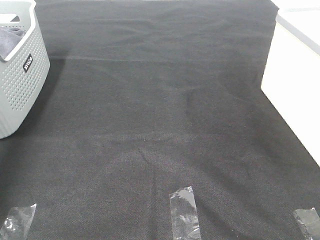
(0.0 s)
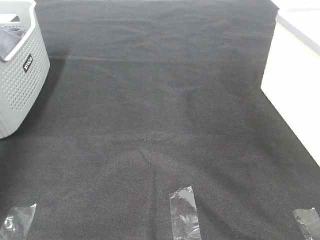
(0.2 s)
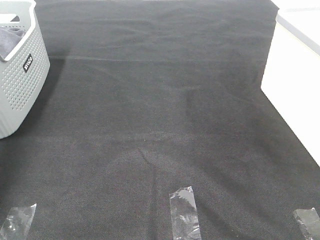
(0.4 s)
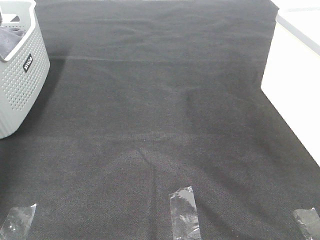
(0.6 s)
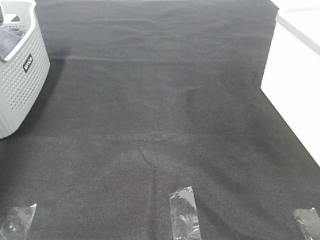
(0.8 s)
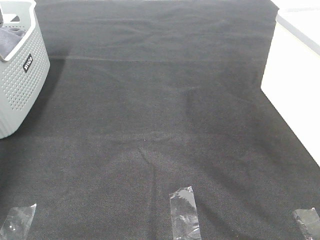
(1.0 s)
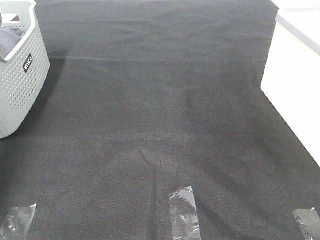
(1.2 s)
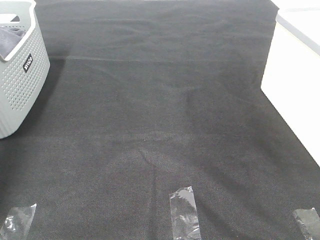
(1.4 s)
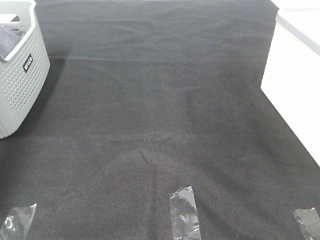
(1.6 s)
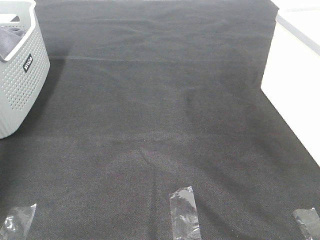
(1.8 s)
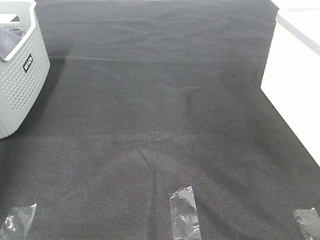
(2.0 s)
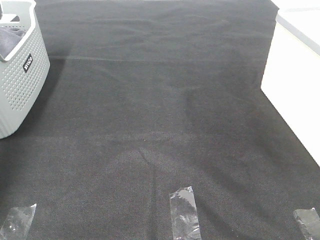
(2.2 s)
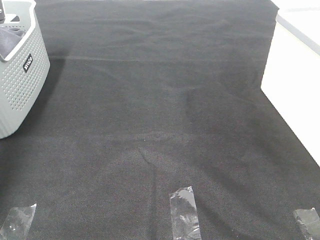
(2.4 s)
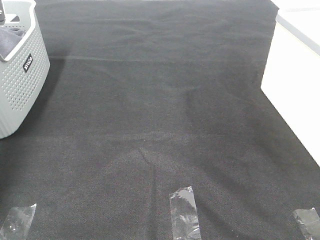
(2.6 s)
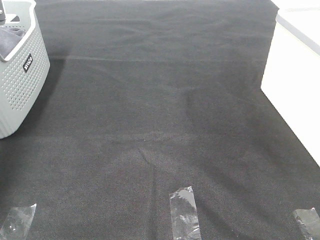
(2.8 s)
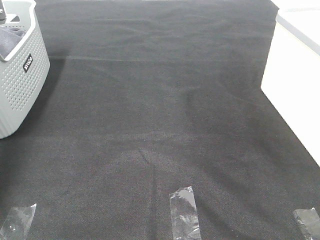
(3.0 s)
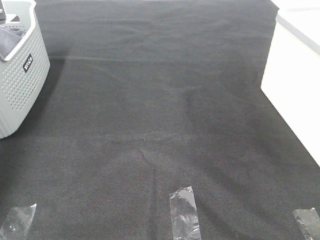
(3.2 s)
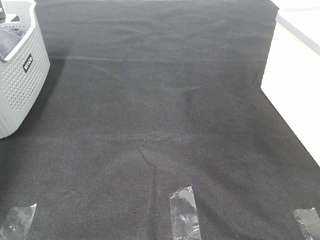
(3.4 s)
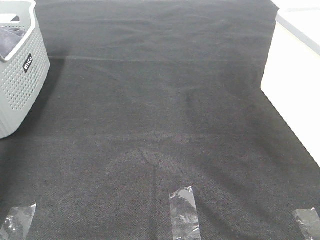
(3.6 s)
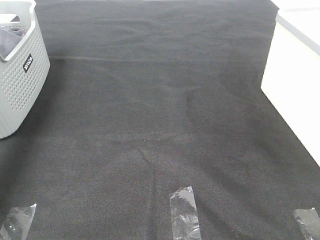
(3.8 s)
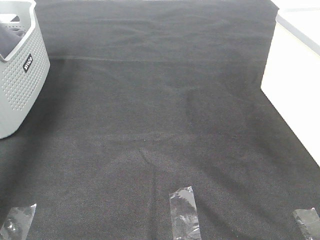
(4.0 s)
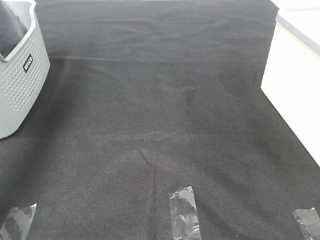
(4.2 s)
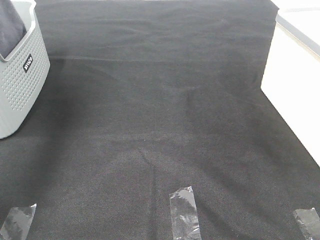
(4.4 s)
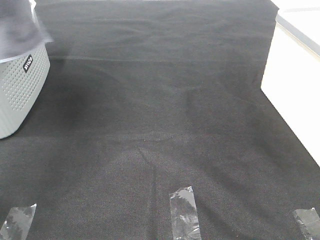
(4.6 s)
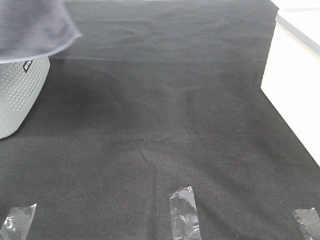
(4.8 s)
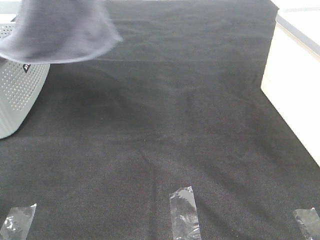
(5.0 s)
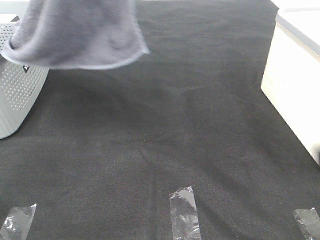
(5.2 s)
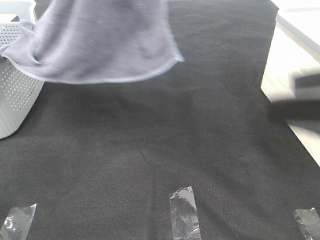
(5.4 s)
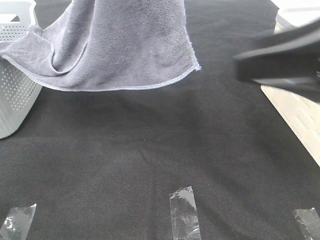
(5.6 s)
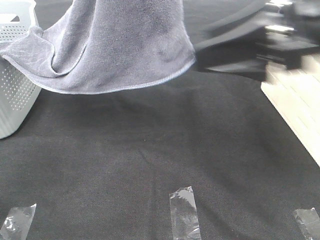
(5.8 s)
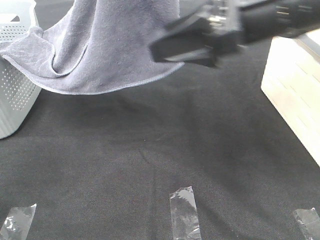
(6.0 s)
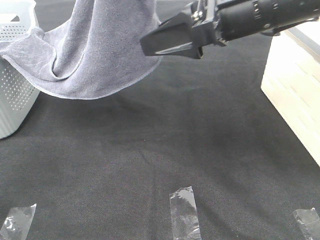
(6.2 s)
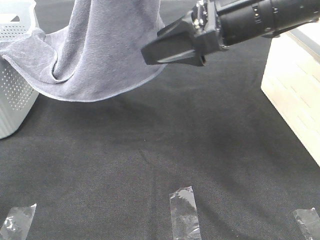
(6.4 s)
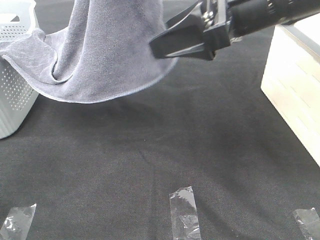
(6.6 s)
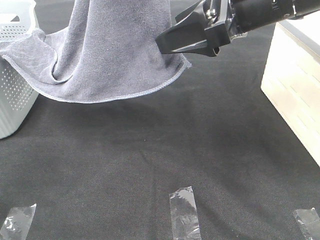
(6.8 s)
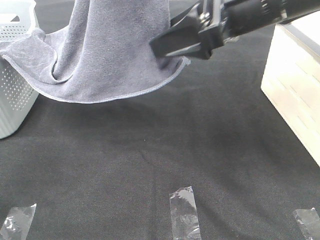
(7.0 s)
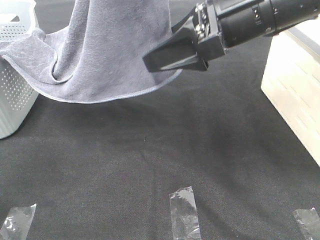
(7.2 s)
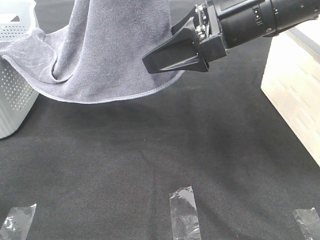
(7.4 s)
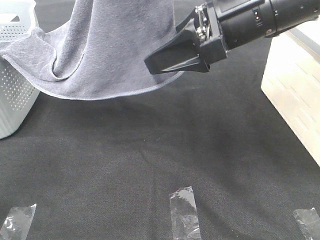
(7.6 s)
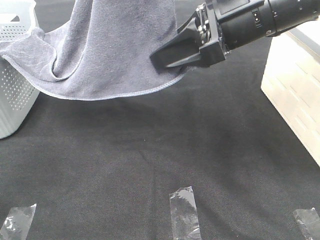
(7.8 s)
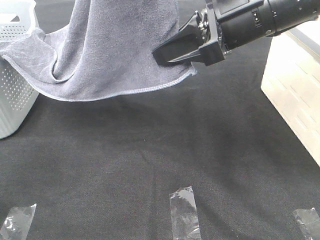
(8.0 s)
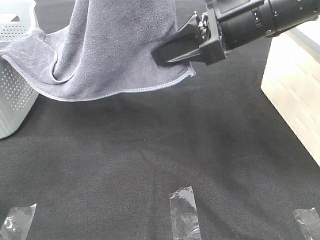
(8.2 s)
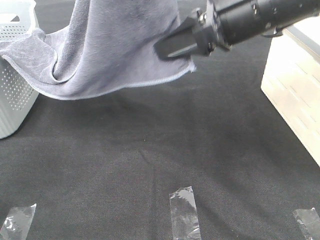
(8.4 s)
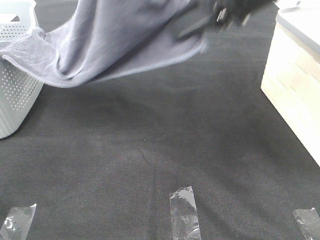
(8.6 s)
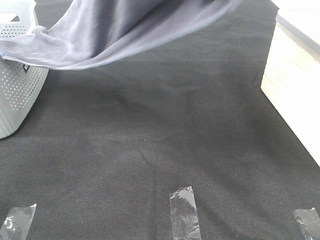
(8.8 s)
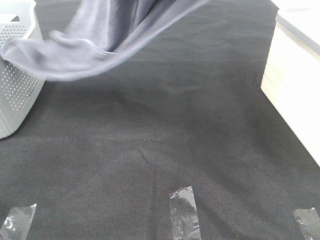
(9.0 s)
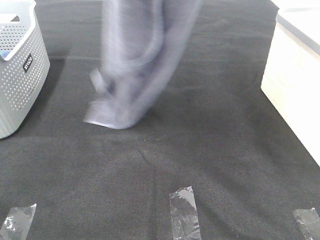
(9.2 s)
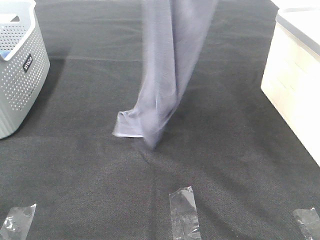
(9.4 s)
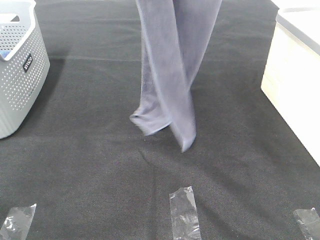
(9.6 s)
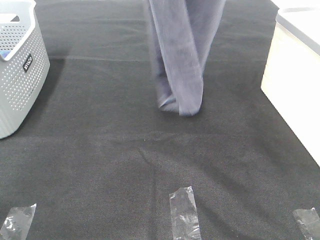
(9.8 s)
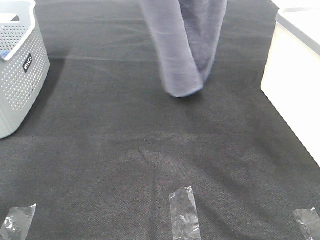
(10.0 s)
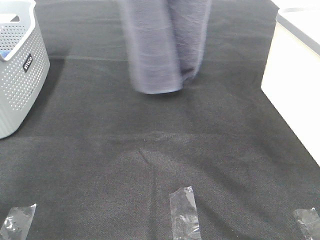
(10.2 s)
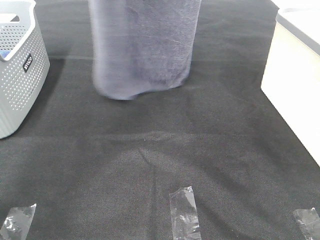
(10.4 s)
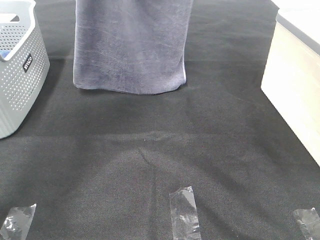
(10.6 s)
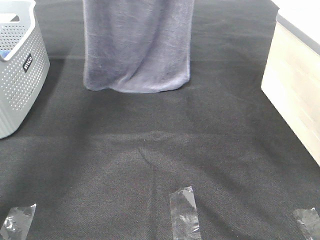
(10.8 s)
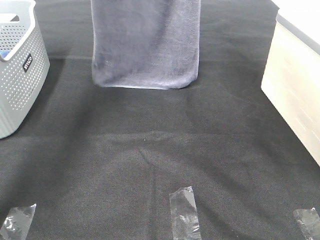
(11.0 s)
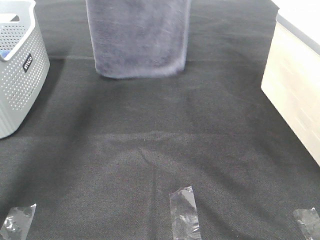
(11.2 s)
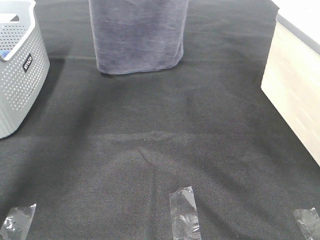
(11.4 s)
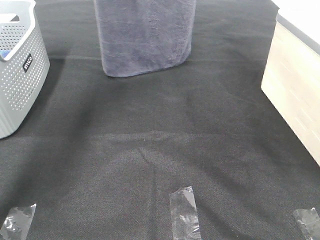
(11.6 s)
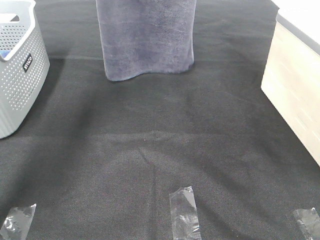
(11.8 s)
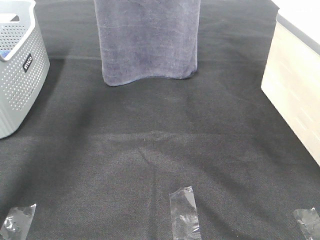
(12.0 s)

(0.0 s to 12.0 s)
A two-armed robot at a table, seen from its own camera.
Task of the whole recording: Remove the towel and place it.
Step, 3.6 s - 9.2 s: Right hand: grab a corner of the grey towel and straighten it.
3.0 s - 4.4 s: The left gripper travels upward, backward and to the right by about 35 cm.
4.4 s - 6.0 s: The right gripper shifts roughly 30 cm forward and to the left. Meanwhile the left gripper heads to the right and backward, covering roughly 25 cm.
6.0 s - 7.6 s: The grippers move only a little.
7.6 s - 9.0 s: The right gripper travels upward by roughly 15 cm, and closes up.
9.0 s - 10.4 s: The grippers both shift forward by roughly 15 cm.
10.4 s - 12.0 s: The left gripper goes roughly 10 cm forward; the right gripper moves some 5 cm.

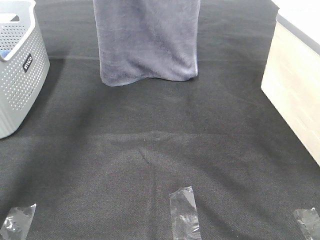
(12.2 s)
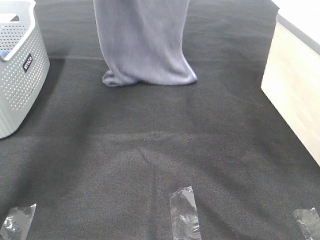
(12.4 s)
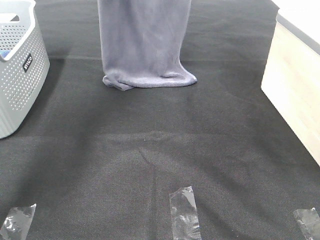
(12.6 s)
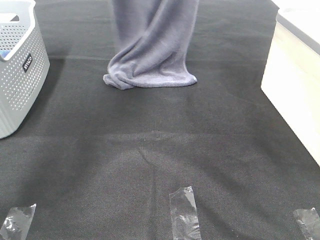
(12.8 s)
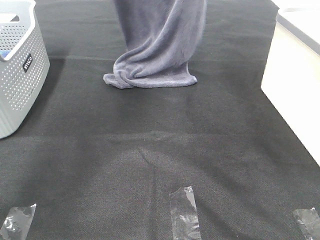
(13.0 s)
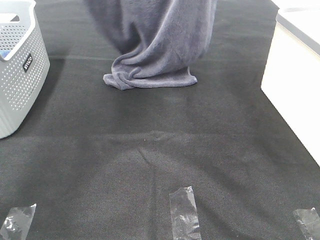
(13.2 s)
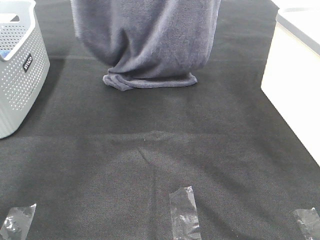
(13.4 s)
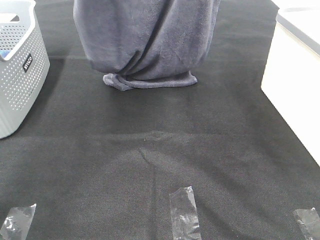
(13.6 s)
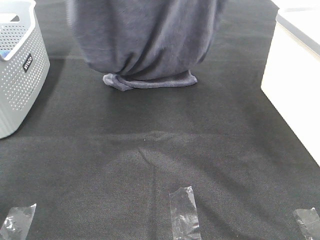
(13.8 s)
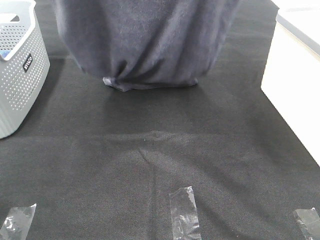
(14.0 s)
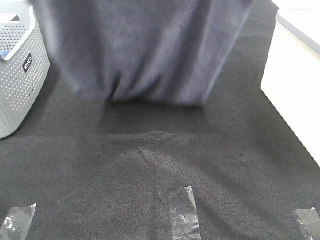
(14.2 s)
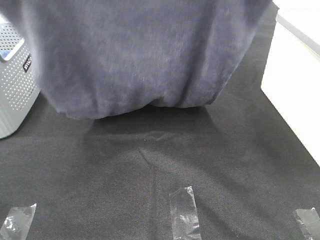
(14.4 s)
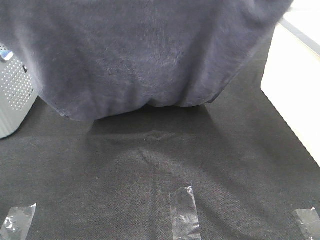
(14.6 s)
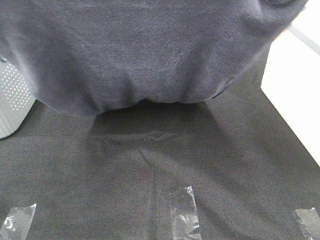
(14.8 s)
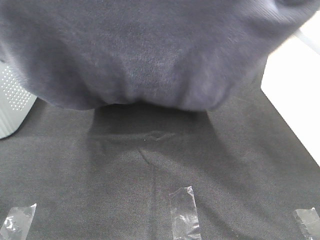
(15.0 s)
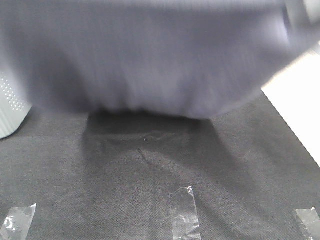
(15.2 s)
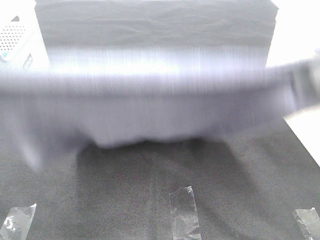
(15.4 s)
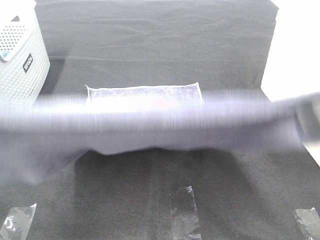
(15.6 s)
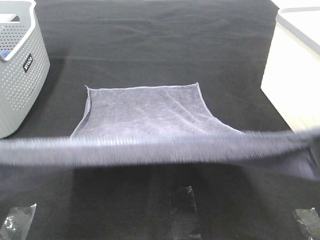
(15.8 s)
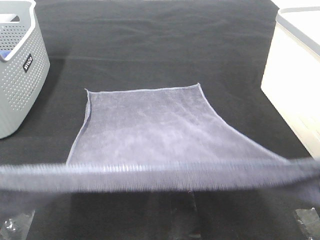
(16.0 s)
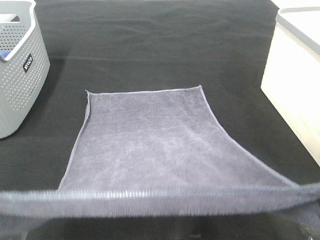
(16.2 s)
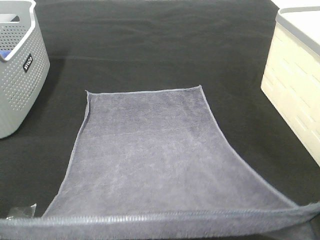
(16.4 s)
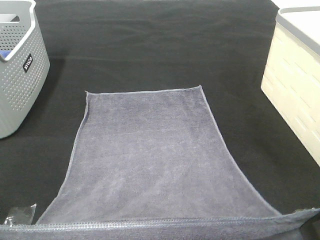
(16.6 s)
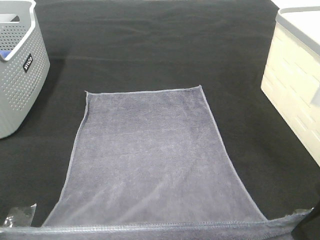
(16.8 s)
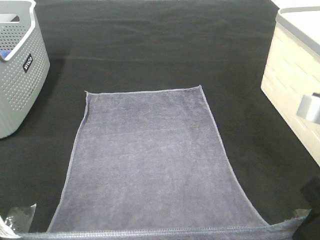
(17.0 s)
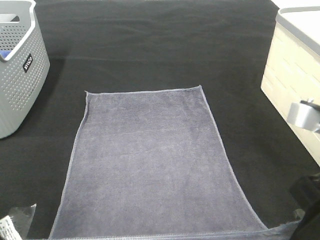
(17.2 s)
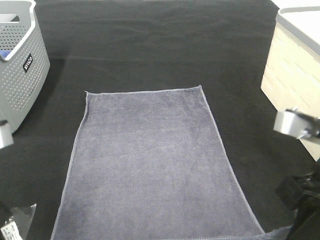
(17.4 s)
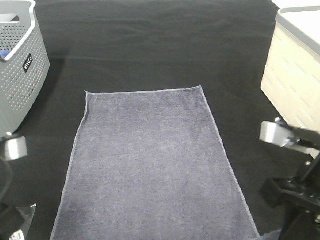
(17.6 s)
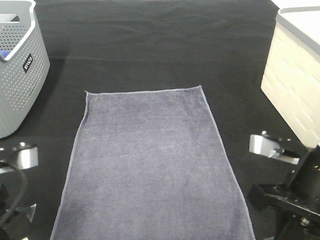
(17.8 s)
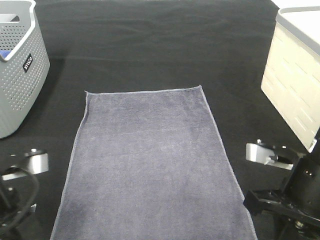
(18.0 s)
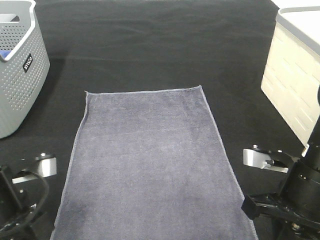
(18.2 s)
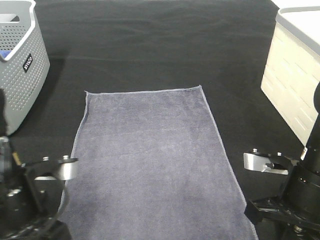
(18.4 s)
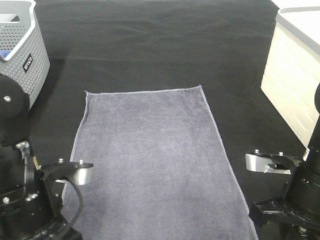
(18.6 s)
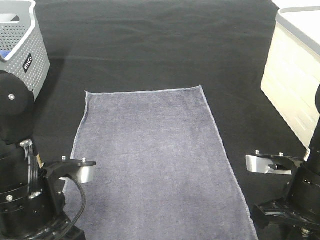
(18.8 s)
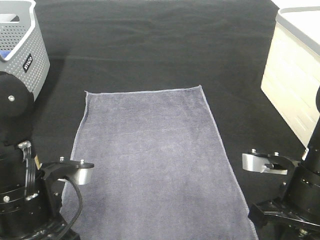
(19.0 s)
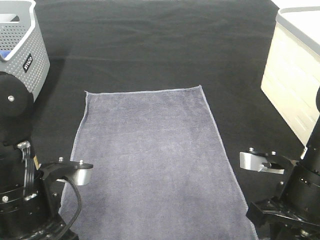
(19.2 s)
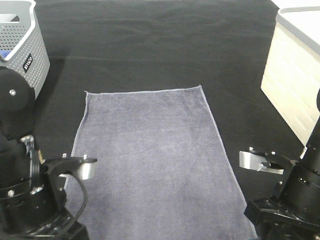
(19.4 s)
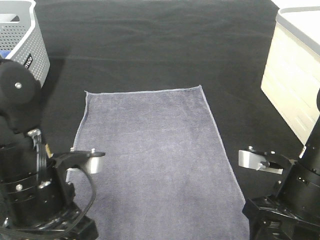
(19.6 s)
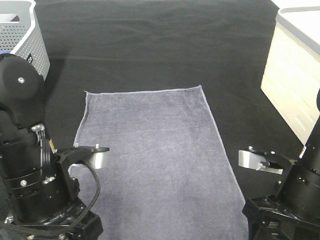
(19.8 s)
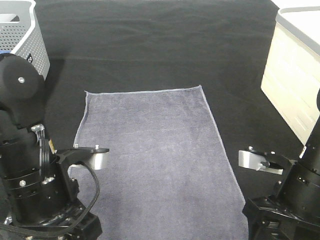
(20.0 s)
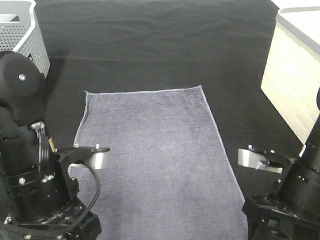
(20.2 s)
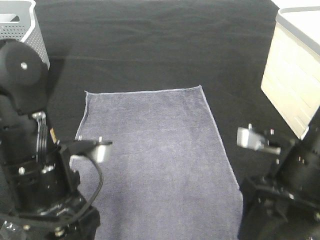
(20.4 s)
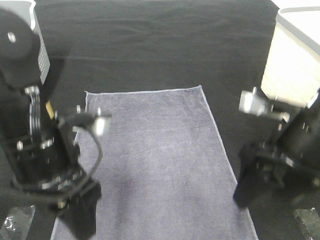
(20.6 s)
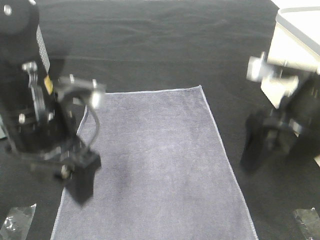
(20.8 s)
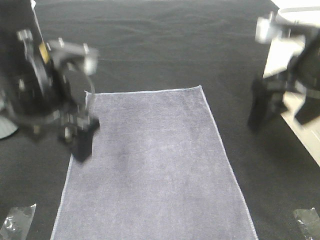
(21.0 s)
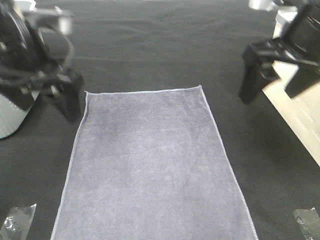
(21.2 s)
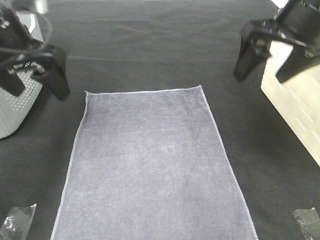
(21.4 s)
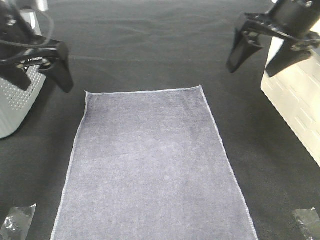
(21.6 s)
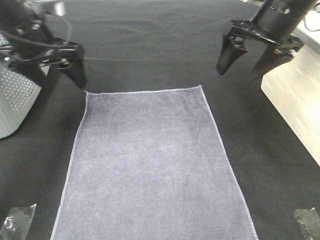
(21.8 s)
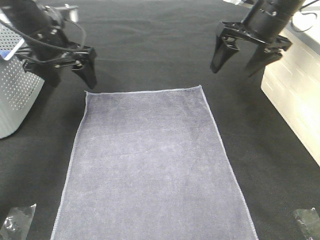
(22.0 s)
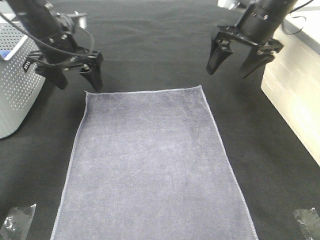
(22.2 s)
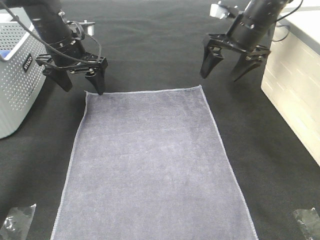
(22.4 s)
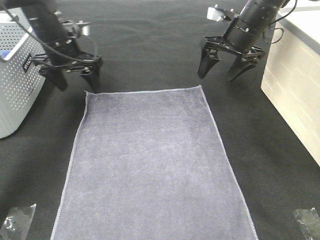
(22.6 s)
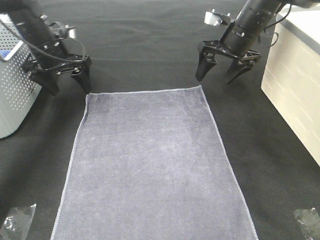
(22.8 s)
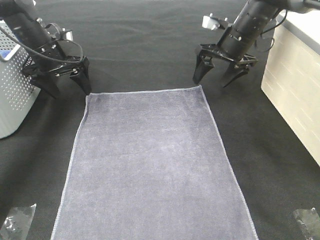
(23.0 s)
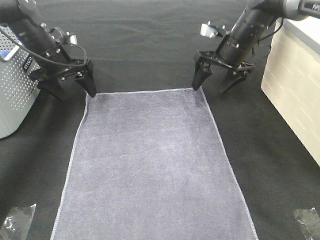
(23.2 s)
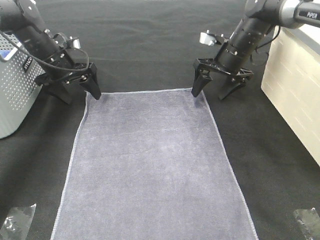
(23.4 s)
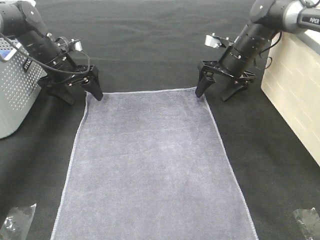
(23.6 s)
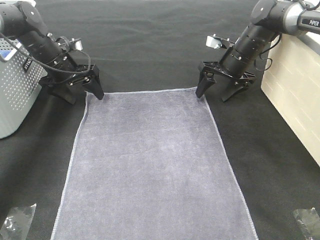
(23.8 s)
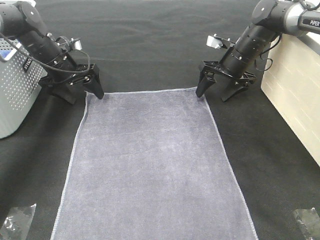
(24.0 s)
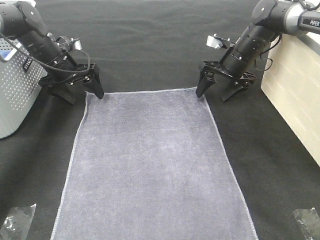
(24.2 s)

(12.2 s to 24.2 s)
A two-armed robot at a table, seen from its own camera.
Task of the whole recording: Remove the towel and place it.
Step, 12.2 s - 14.8 s: Left hand: spread the grey towel flat on the table.
Step, 12.2 s - 14.8 s: Right hand: spread the grey towel flat on the table.
12.2 s - 13.8 s: Both grippers travel together backward, some 15 cm.
13.8 s - 15.2 s: Both grippers move backward, roughly 20 cm.
15.2 s - 16.6 s: The grippers both shift downward and backward by roughly 15 cm.
16.6 s - 18.2 s: The two grippers go some 15 cm downward and forward.
18.2 s - 19.8 s: The right gripper opens. The left gripper heads to the right, covering about 5 cm, and opens up.
19.8 s - 21.2 s: The left gripper shifts roughly 15 cm forward and upward. The right gripper heads upward and forward, covering approximately 20 cm.
21.2 s - 22.6 s: Both grippers travel together forward and downward, approximately 20 cm.
22.6 s - 24.2 s: Both grippers travel together downward, roughly 5 cm.
